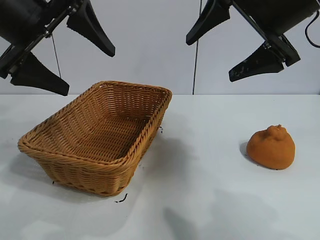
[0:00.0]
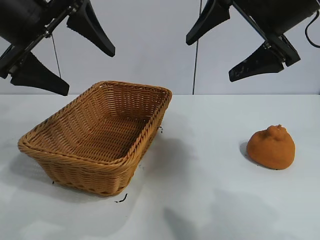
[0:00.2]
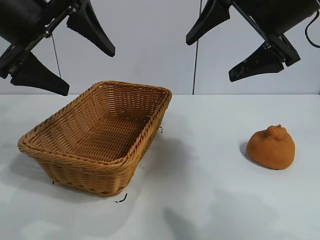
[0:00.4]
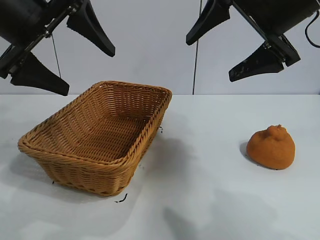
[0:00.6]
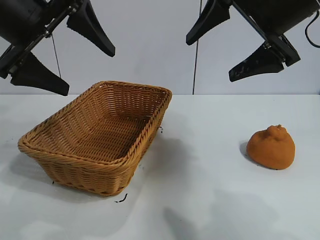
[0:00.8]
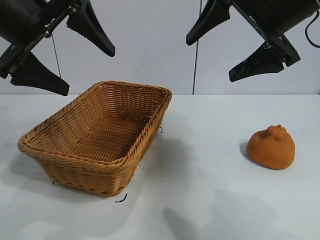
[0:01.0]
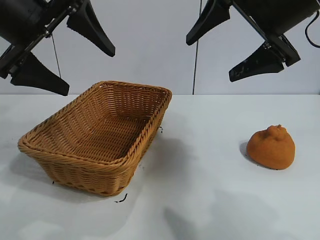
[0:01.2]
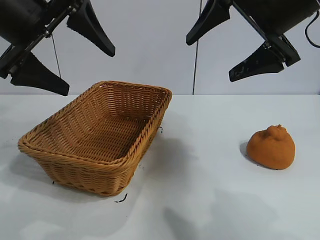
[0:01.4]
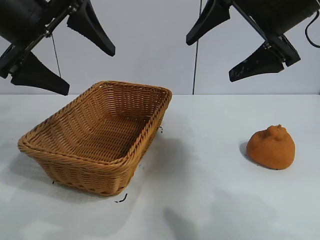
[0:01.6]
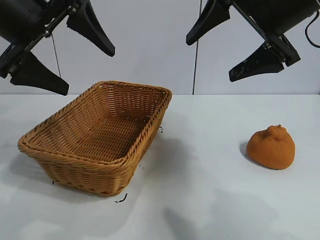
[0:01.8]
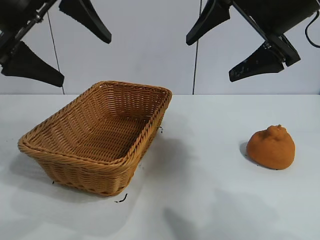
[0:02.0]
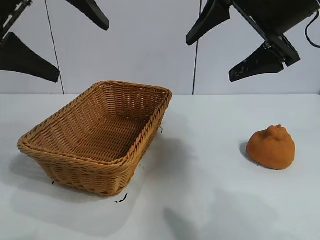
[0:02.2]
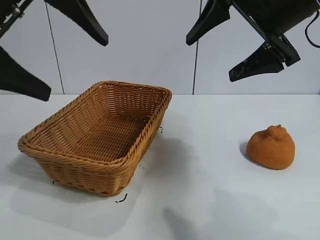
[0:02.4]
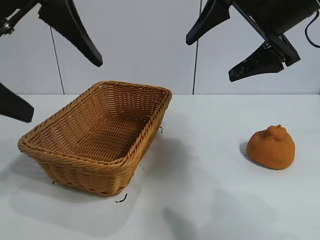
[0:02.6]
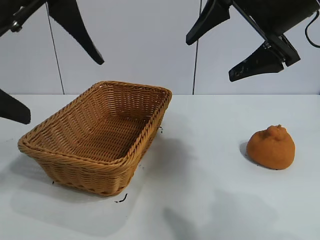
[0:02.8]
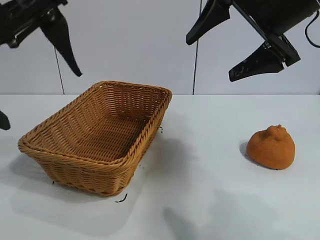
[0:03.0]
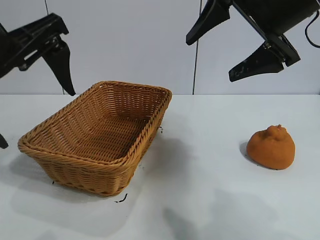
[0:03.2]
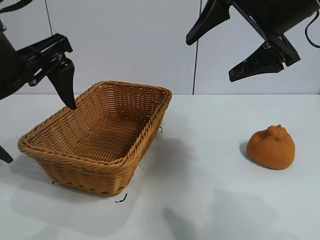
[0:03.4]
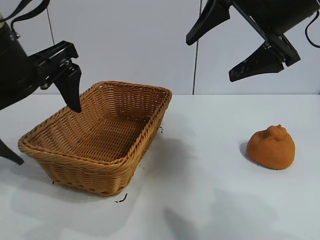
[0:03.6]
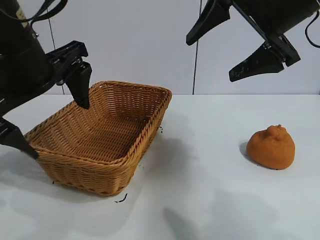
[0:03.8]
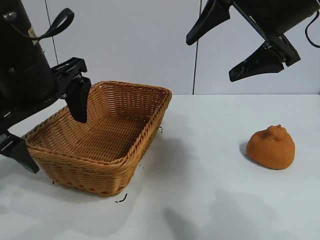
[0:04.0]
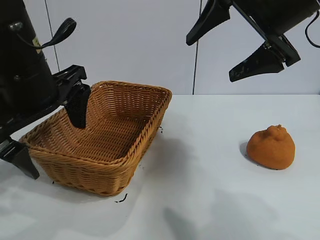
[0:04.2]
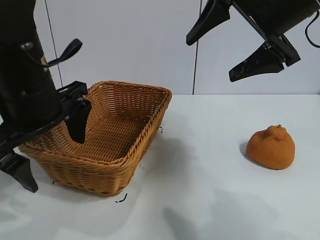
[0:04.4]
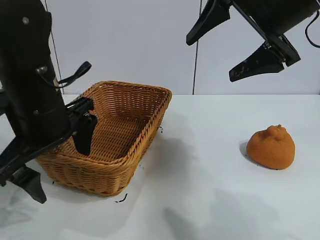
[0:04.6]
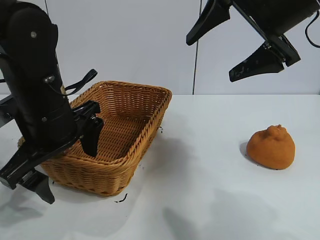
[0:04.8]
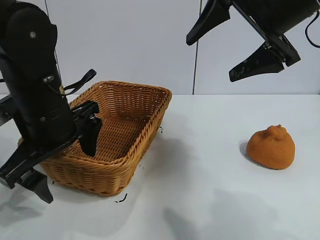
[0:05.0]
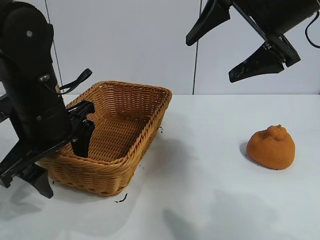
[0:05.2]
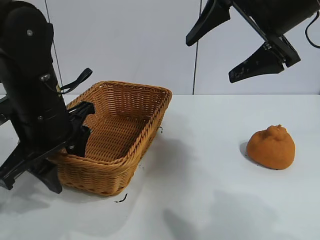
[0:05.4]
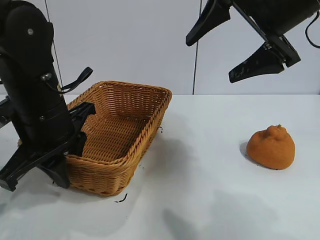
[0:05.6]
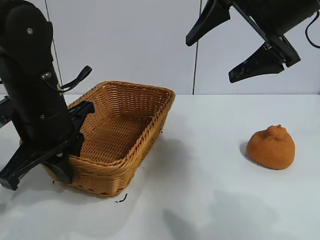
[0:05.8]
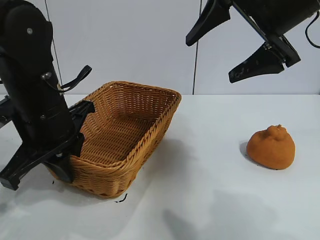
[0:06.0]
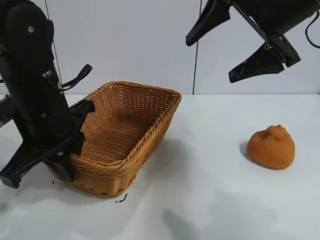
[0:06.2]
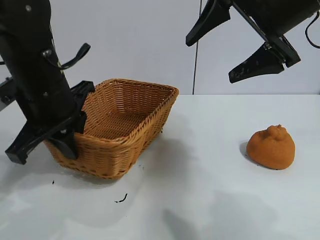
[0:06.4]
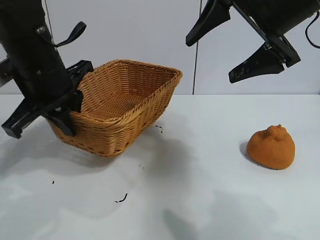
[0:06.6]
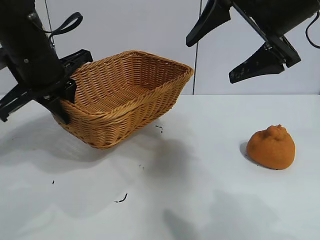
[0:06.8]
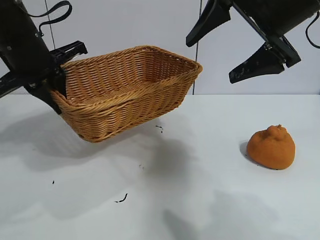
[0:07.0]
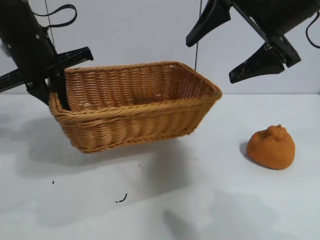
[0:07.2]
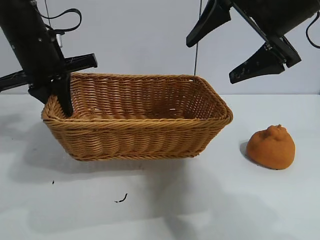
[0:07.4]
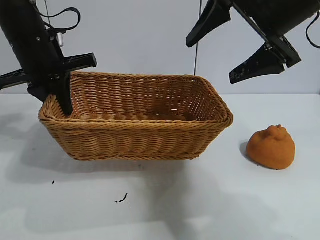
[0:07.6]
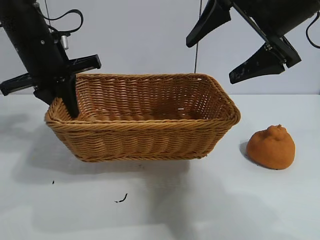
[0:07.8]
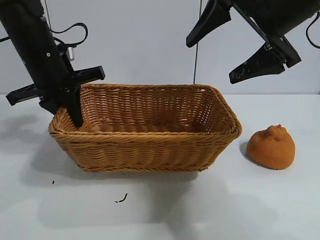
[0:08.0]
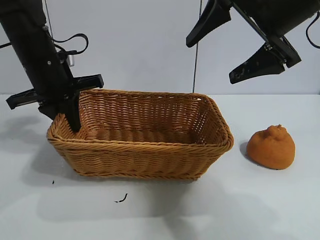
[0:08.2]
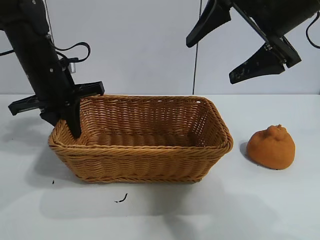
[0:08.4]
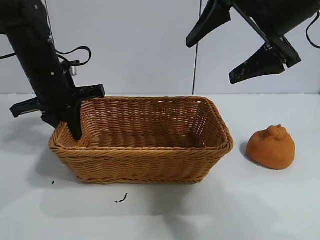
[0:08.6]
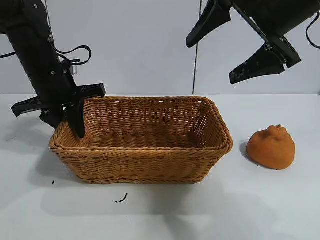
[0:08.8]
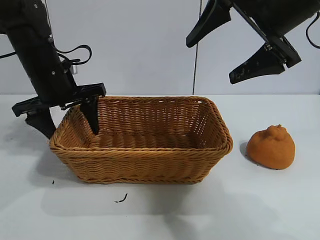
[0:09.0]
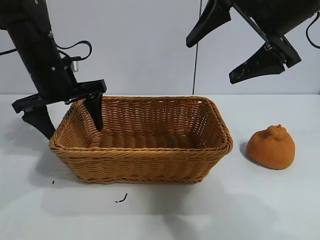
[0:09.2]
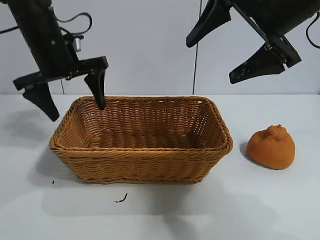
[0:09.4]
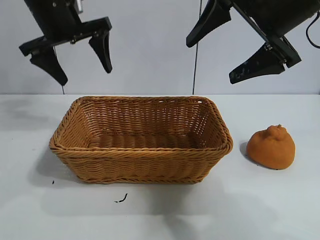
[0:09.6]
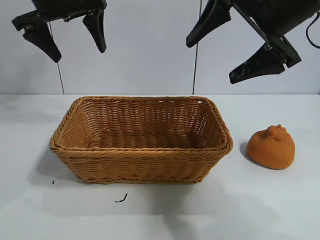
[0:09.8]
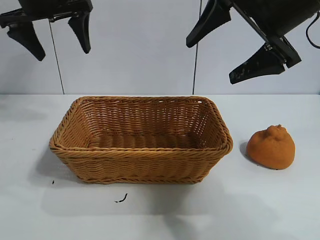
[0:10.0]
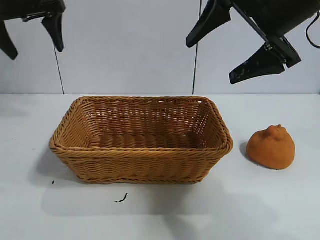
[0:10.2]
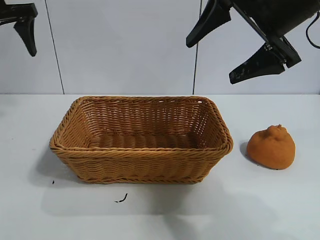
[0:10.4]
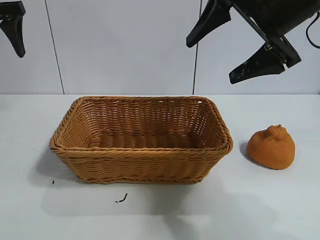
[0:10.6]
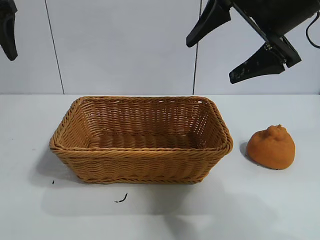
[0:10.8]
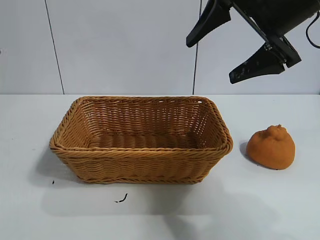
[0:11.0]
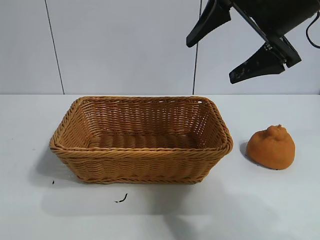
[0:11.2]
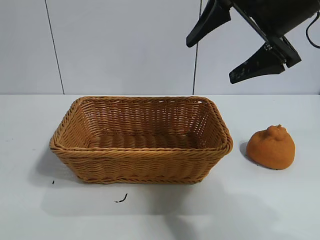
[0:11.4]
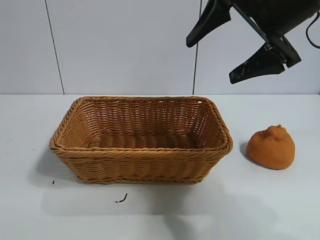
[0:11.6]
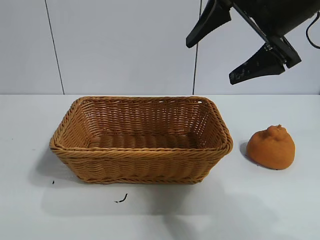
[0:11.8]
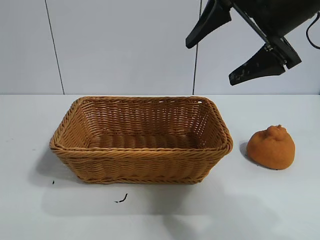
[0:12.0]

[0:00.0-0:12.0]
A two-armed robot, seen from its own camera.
Task of the whole recording: pick up the orange and put it into the basket.
Step, 0:01.8 to 0:05.8: Grasp the basket with left gripper.
Step, 0:06.0 to 0:09.2: Place the basket in the center of view with left gripper.

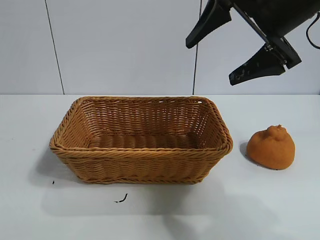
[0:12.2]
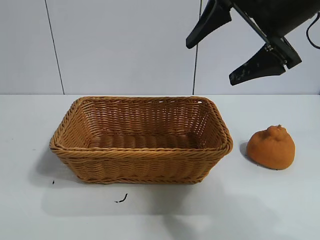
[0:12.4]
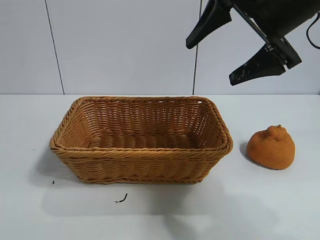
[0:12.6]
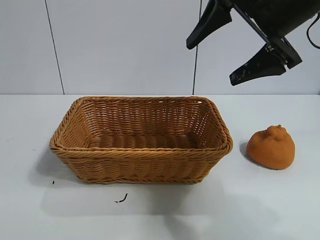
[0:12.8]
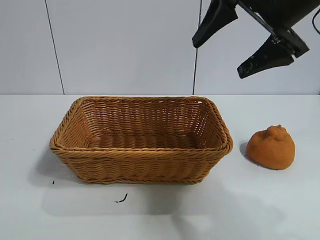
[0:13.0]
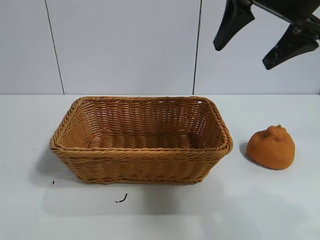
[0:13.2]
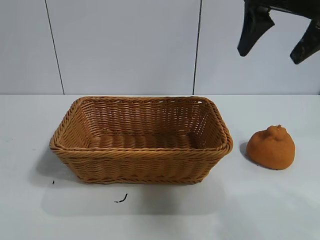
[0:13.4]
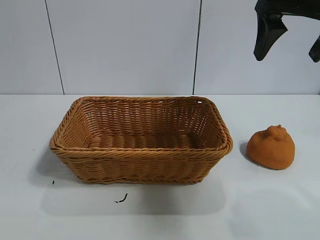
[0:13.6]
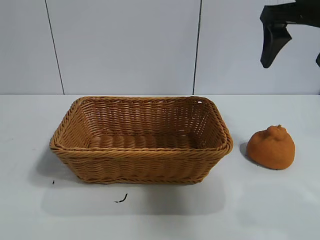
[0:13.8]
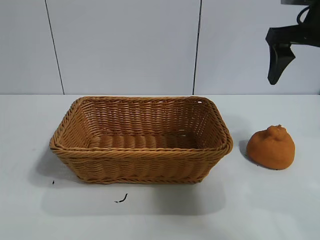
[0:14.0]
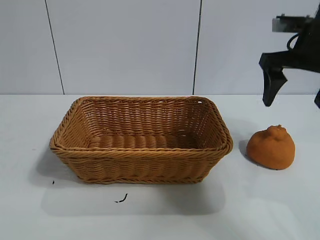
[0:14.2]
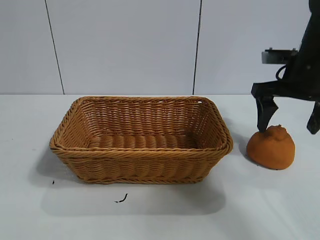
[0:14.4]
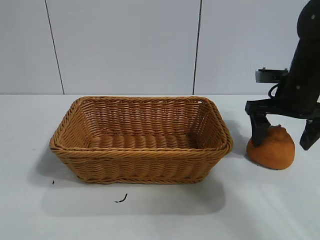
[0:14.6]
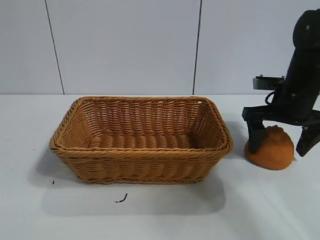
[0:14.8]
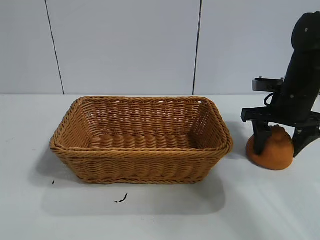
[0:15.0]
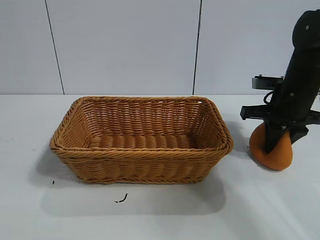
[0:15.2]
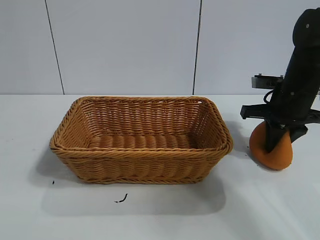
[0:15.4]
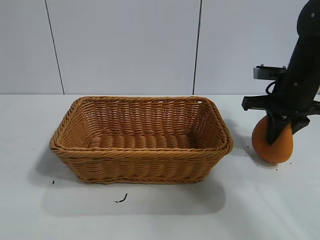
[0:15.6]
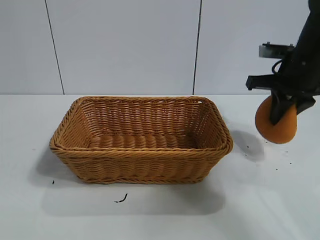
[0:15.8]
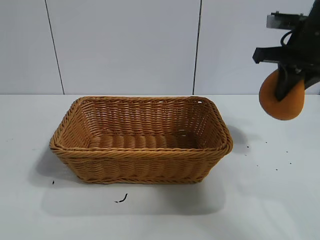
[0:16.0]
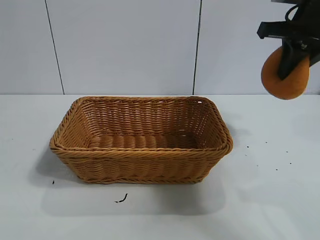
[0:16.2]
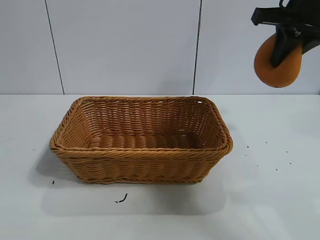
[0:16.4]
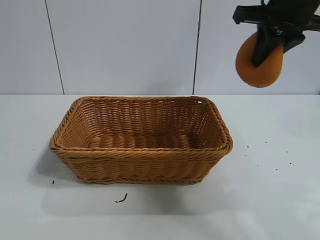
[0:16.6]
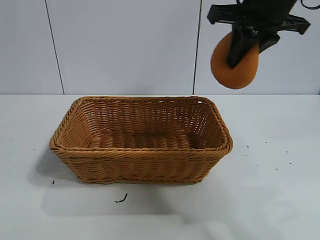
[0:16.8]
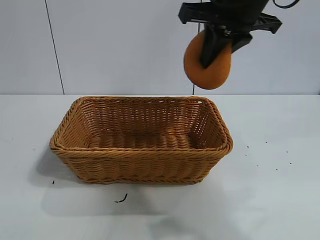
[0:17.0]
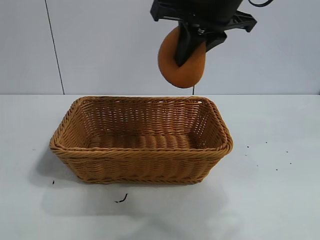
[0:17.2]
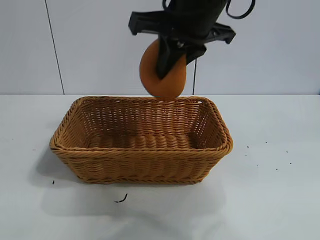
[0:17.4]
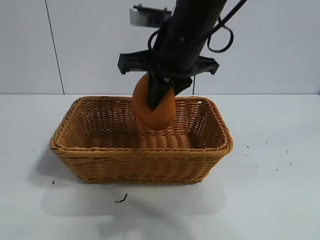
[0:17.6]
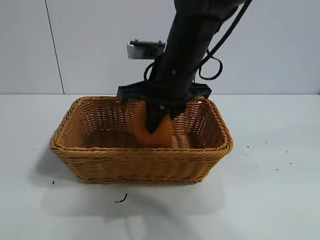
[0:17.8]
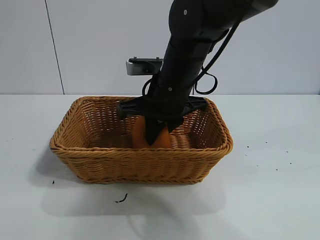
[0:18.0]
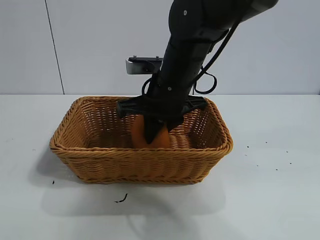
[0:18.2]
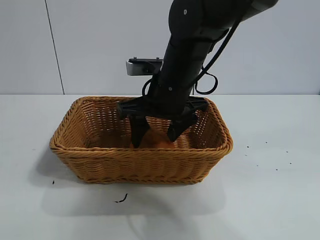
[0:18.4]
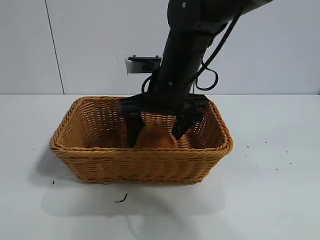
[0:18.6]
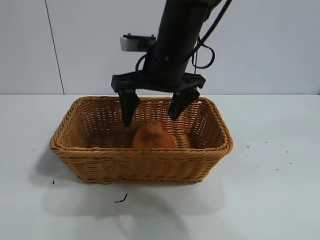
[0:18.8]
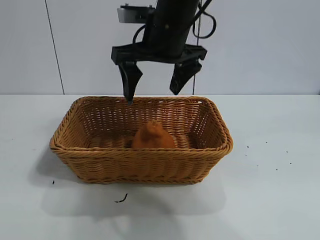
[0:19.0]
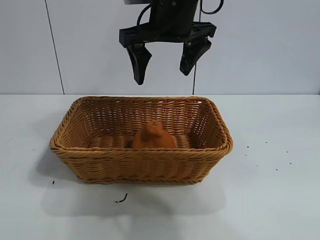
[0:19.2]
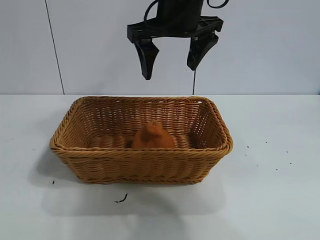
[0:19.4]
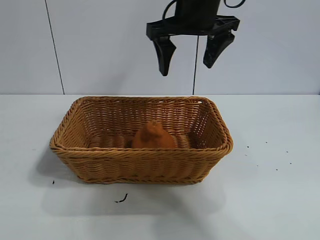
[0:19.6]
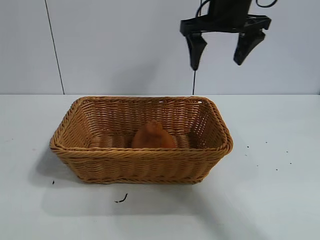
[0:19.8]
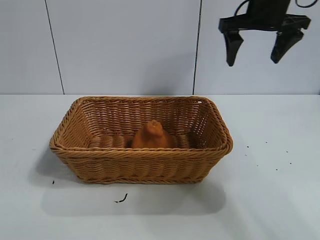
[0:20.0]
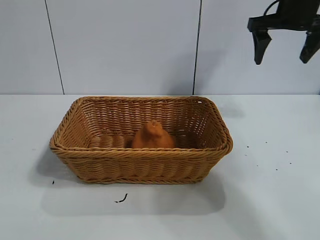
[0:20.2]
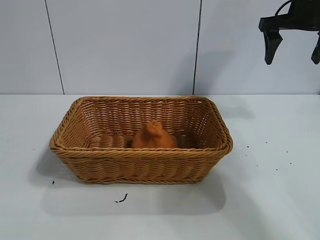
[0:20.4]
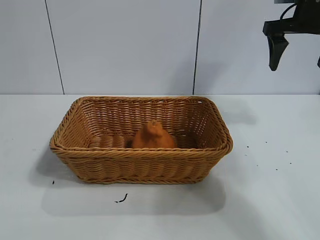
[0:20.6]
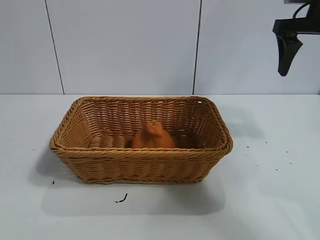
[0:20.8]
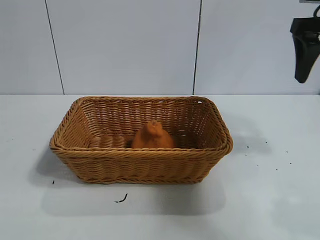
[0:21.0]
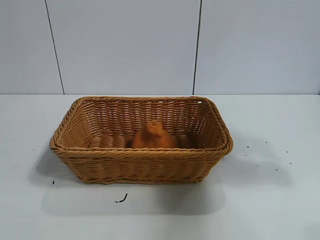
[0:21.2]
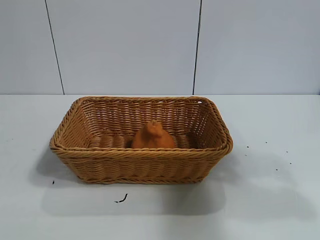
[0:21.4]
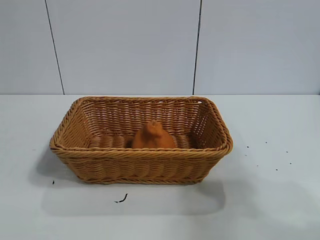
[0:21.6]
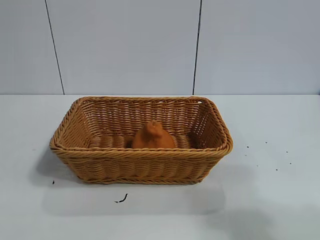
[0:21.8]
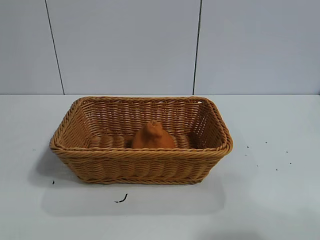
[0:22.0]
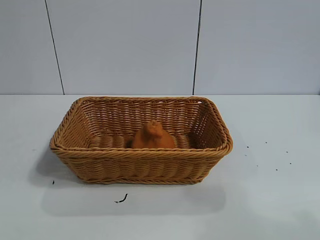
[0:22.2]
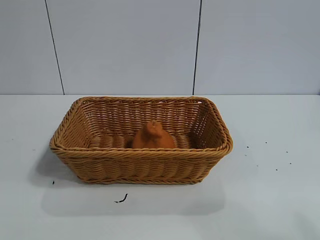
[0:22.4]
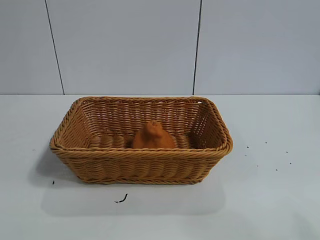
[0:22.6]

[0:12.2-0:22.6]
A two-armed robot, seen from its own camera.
Task of the whole recording: pick up the orange and put it into the basket.
Step, 0:12.2 to 0:15.4: Grasp the orange with right gripper.
Step, 0:15.8 to 0:18.6: Place the orange in the basket with right gripper.
